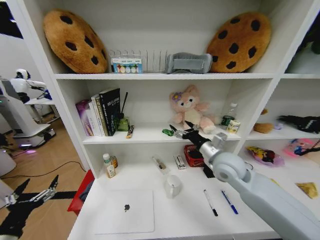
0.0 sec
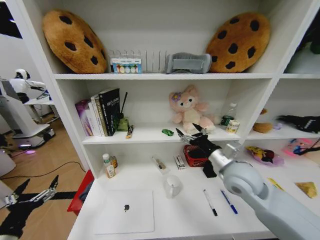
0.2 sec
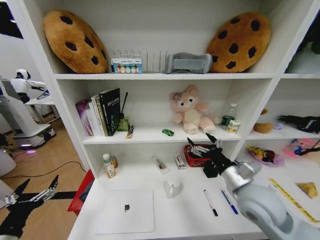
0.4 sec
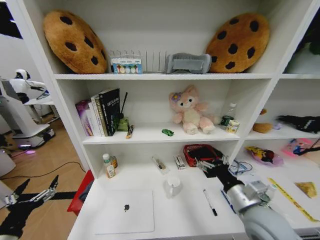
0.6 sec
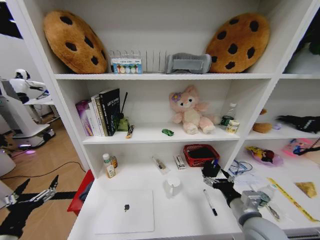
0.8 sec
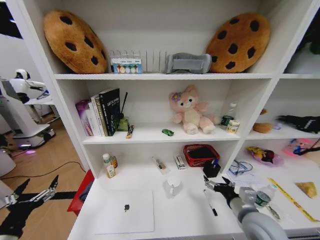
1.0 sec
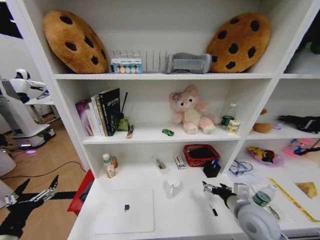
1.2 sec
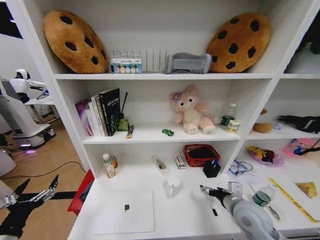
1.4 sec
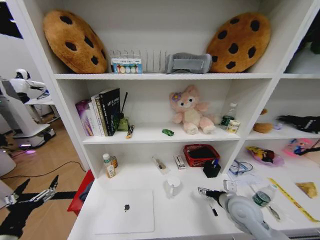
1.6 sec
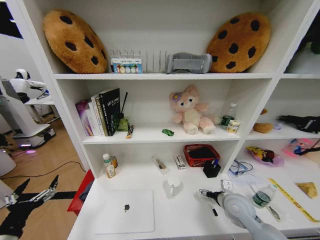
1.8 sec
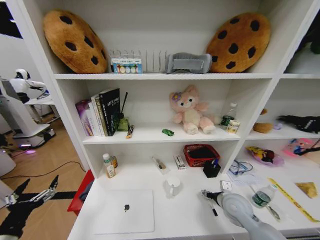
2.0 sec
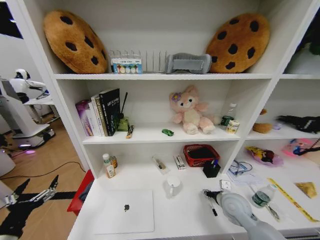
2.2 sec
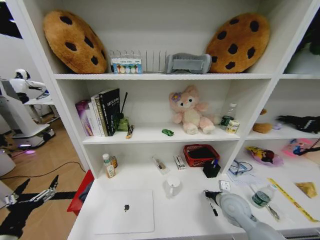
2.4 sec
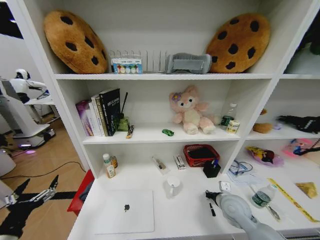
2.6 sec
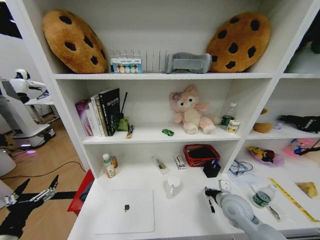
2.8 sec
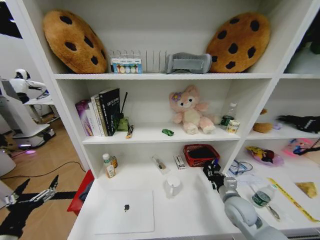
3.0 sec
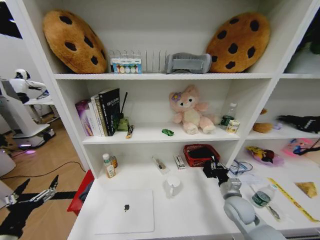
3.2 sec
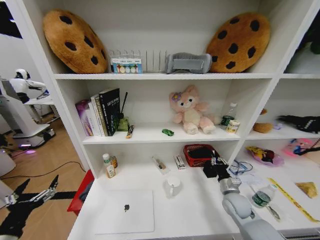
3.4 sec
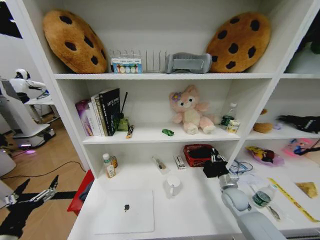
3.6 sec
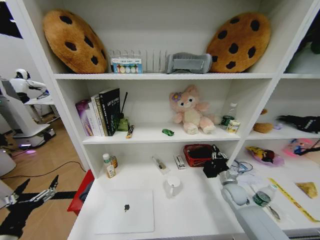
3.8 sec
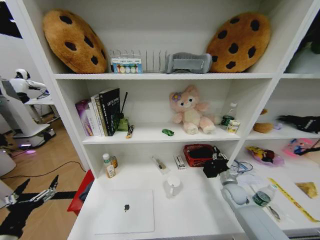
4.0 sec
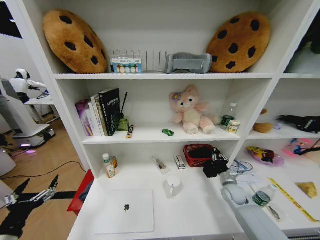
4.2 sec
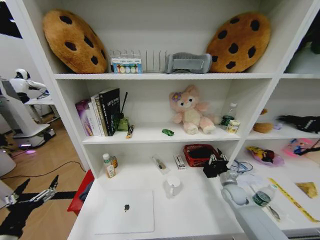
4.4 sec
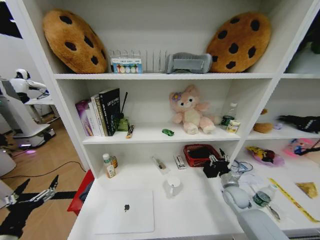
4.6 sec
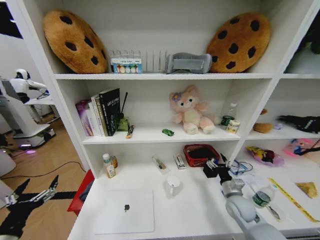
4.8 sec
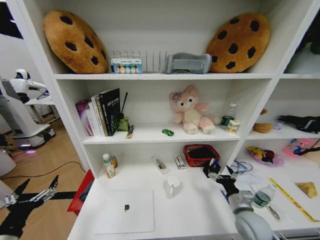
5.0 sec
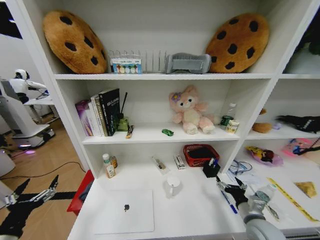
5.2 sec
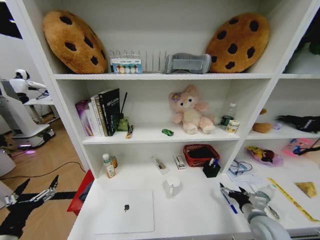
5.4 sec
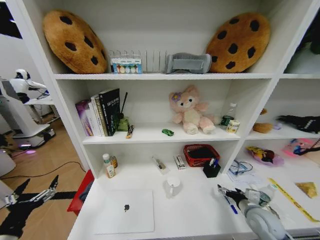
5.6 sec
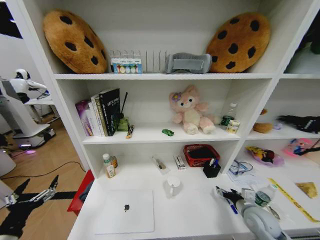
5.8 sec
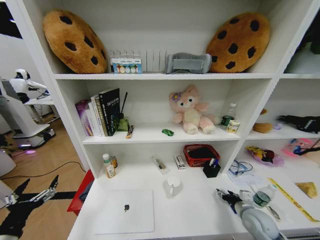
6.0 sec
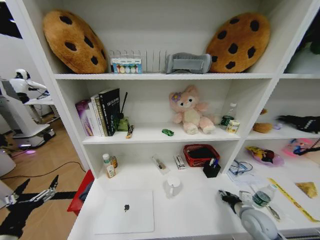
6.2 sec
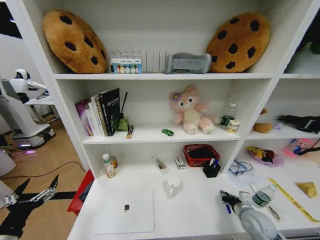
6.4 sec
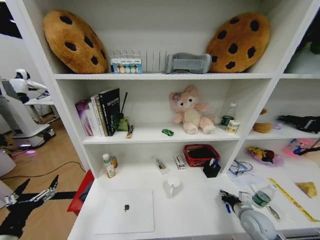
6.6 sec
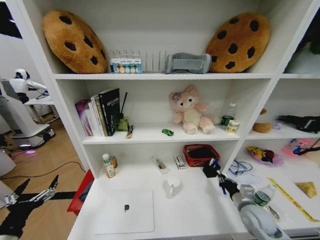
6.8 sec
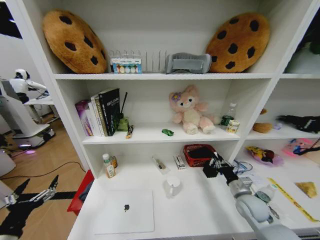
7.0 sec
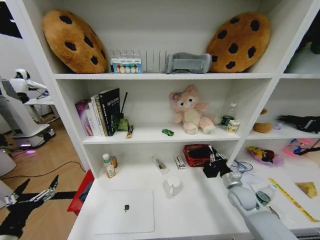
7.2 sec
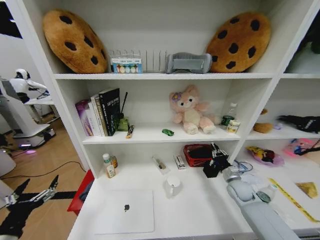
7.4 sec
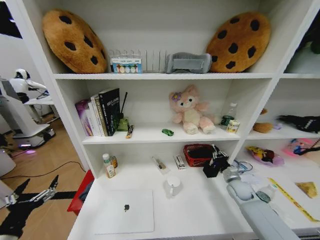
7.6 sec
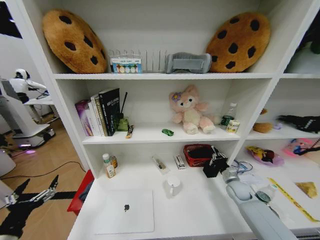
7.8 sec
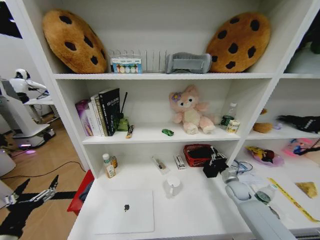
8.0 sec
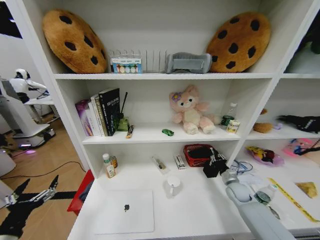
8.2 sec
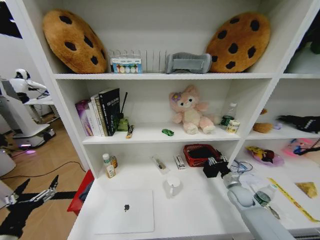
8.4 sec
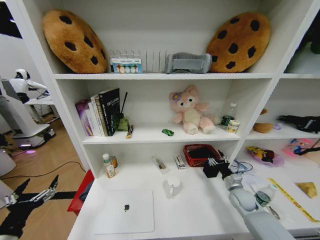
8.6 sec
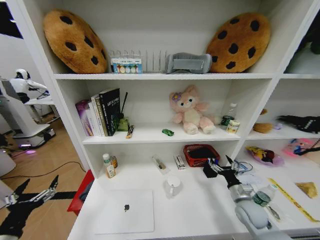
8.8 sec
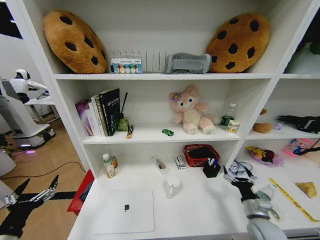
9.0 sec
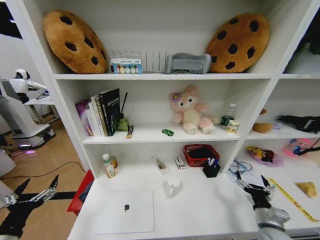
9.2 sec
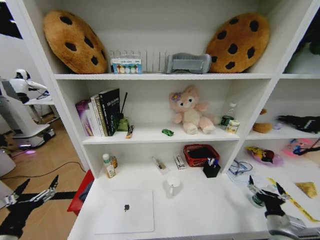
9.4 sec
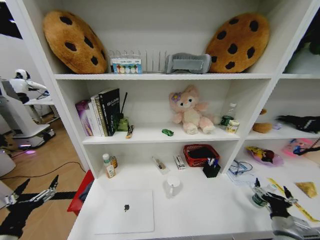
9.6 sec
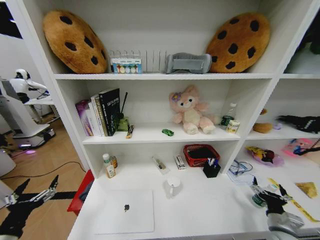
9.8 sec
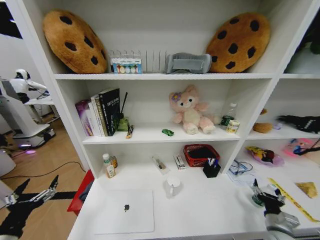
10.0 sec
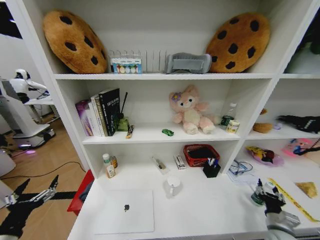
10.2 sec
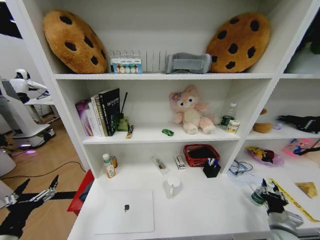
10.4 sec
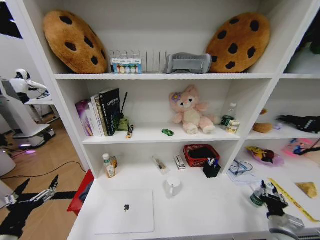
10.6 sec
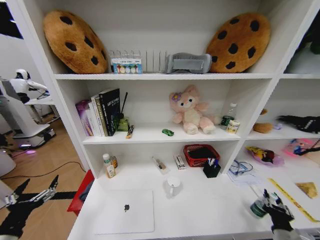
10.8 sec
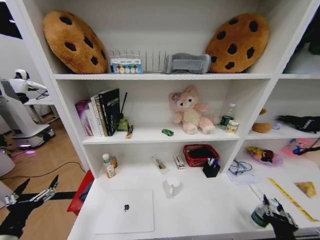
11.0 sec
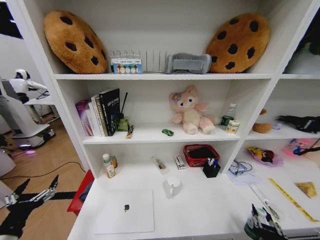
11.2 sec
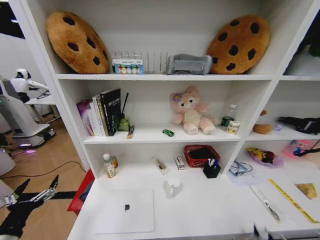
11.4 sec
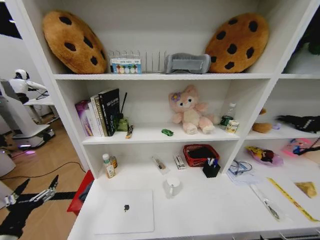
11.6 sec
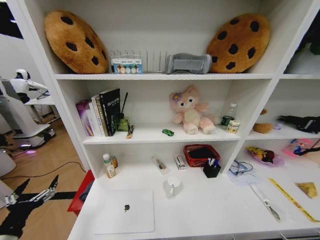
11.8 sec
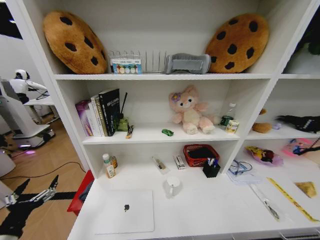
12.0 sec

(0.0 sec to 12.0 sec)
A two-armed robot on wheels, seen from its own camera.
Task of the whole recording: Organize the objects on the table.
0.0 sec - 1.6 sec: The right gripper heads downward, backward and to the right, covering roughly 20 cm.
1.6 sec - 3.0 sec: The right gripper closes up.
3.0 sec - 4.4 sec: The right gripper is displaced forward, downward and to the right by roughly 15 cm.
4.4 sec - 6.0 sec: The right gripper is displaced backward by some 10 cm, and opens, then closes again.
6.0 sec - 7.6 sec: The right gripper goes about 15 cm forward, and closes.
7.6 sec - 9.0 sec: The right gripper shifts roughly 15 cm backward, and opens its fingers.
9.0 sec - 10.4 sec: The right gripper travels to the right by about 10 cm, and closes its fingers.
10.4 sec - 12.0 sec: The right gripper travels backward and to the left by about 25 cm.

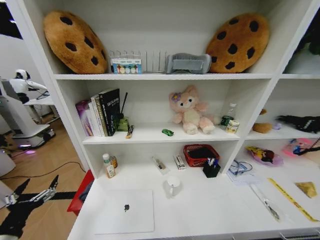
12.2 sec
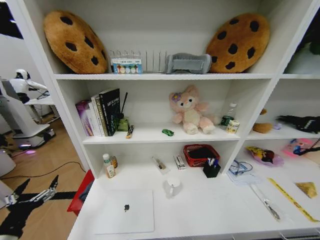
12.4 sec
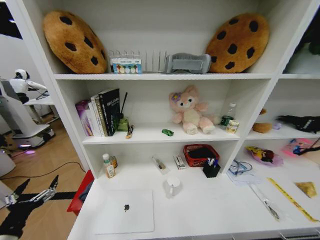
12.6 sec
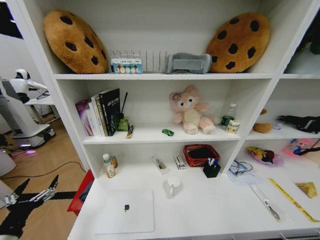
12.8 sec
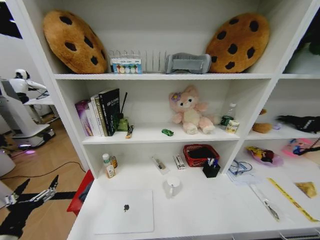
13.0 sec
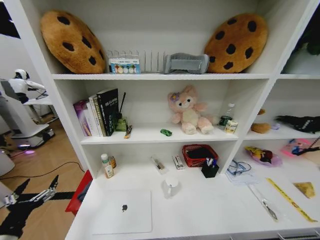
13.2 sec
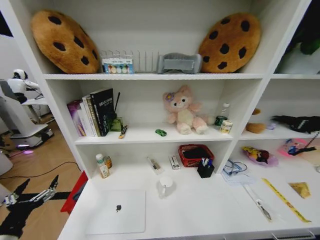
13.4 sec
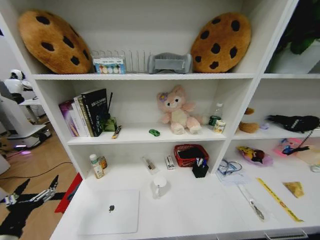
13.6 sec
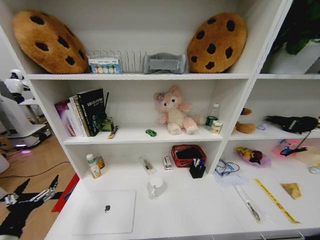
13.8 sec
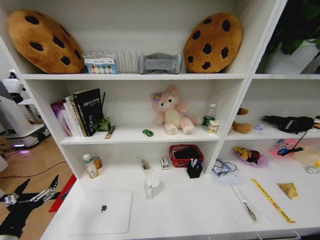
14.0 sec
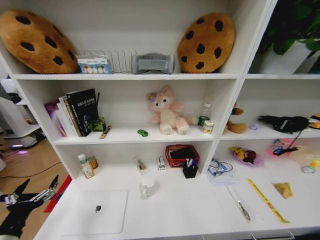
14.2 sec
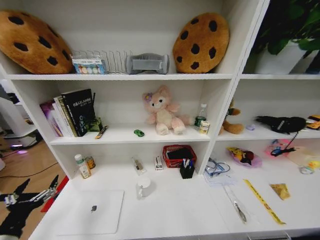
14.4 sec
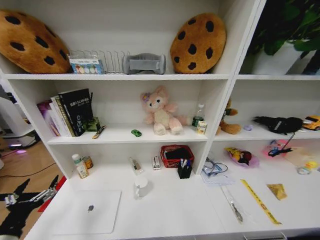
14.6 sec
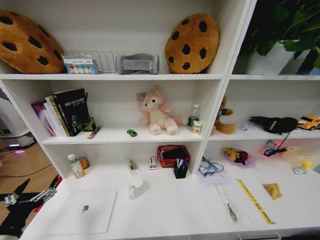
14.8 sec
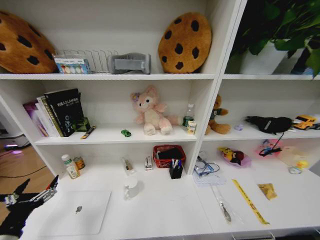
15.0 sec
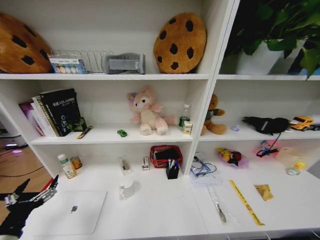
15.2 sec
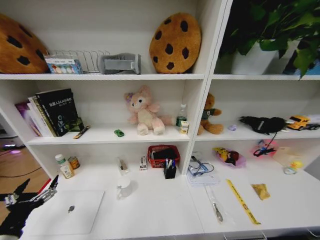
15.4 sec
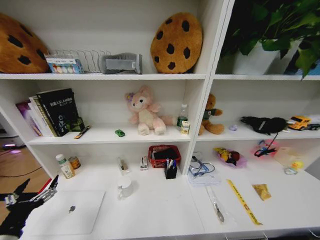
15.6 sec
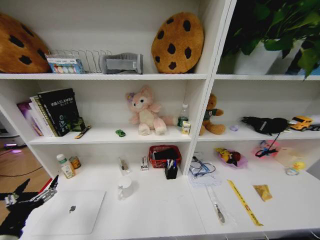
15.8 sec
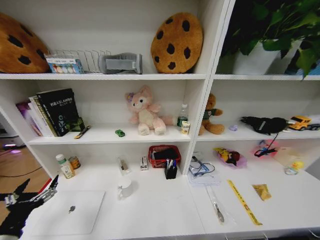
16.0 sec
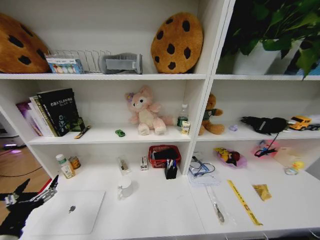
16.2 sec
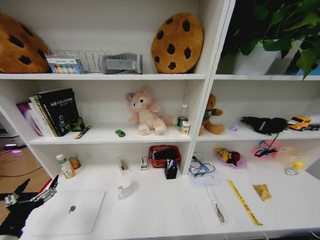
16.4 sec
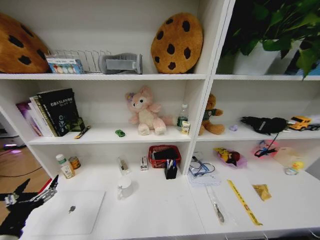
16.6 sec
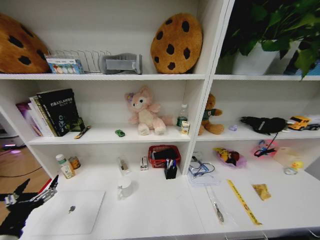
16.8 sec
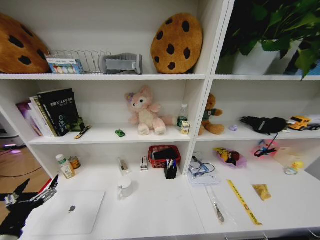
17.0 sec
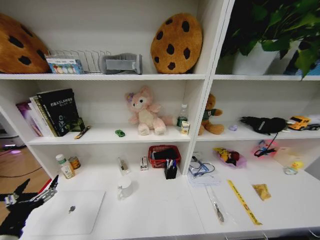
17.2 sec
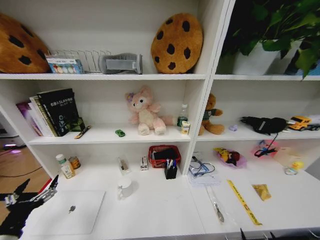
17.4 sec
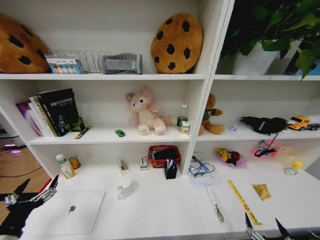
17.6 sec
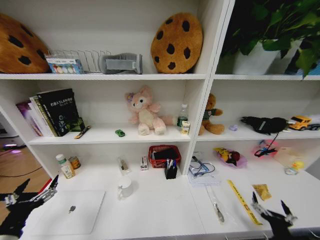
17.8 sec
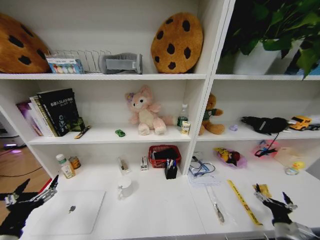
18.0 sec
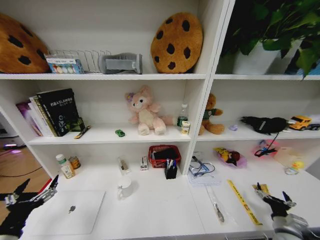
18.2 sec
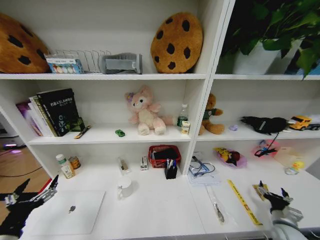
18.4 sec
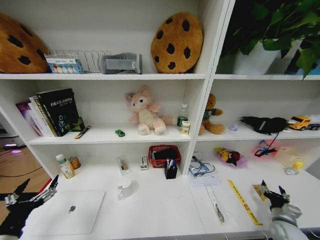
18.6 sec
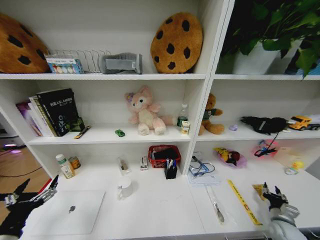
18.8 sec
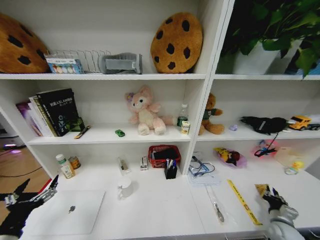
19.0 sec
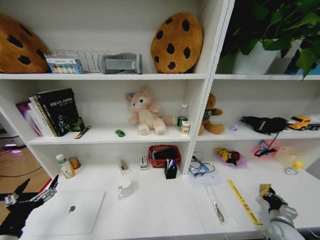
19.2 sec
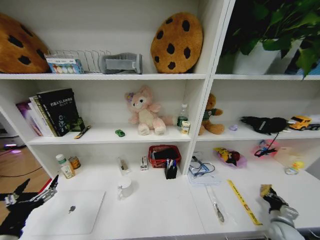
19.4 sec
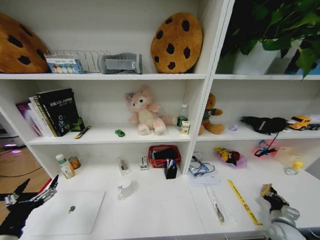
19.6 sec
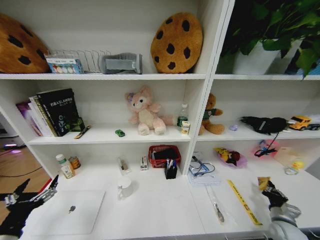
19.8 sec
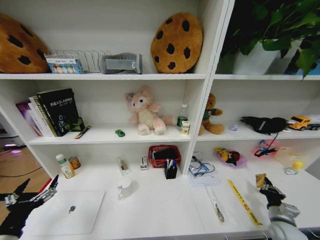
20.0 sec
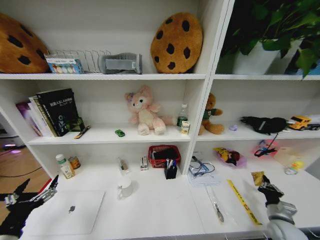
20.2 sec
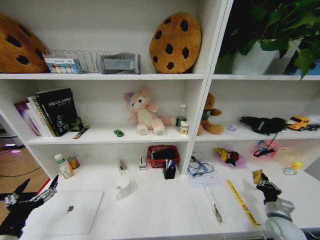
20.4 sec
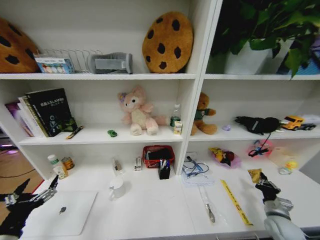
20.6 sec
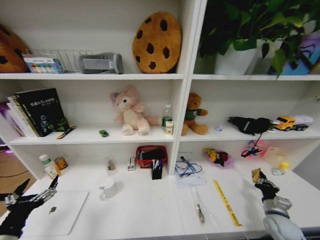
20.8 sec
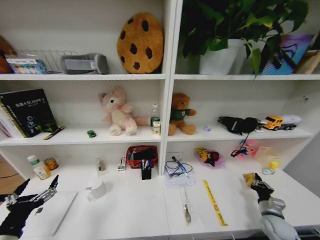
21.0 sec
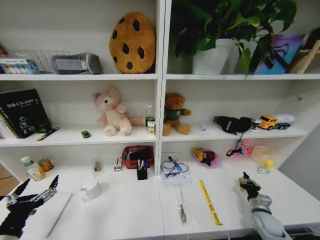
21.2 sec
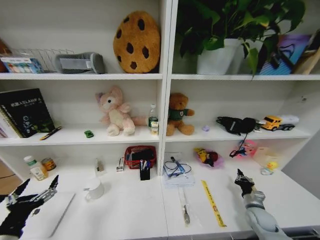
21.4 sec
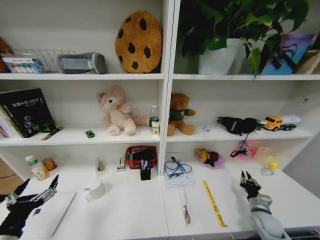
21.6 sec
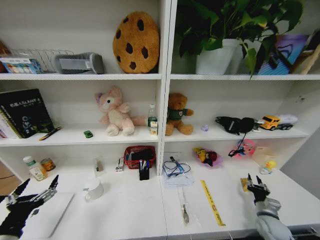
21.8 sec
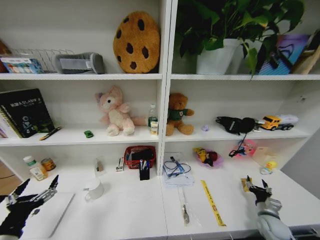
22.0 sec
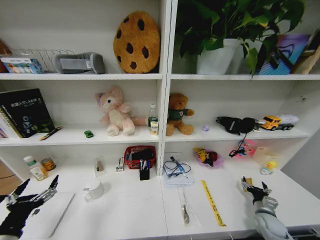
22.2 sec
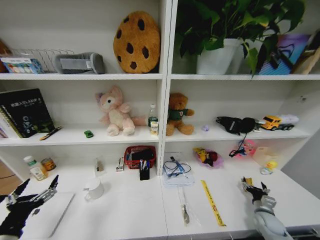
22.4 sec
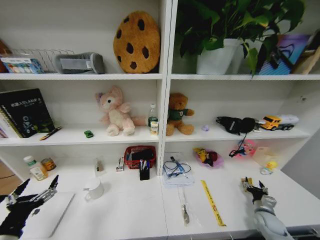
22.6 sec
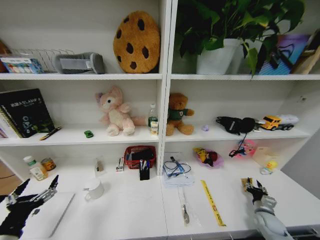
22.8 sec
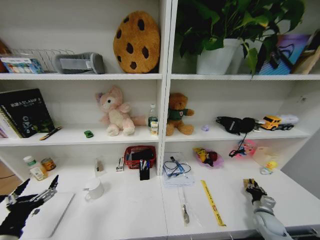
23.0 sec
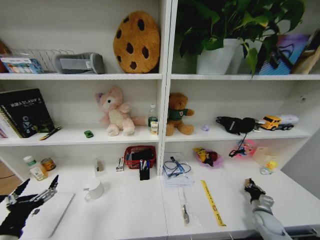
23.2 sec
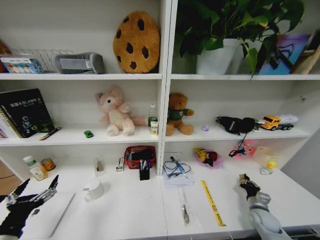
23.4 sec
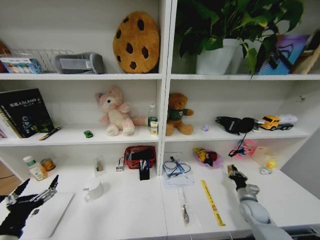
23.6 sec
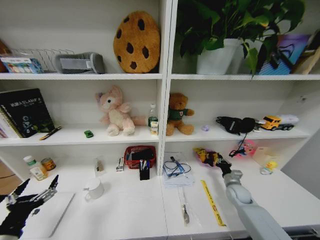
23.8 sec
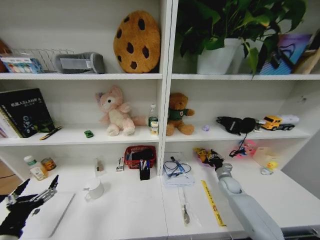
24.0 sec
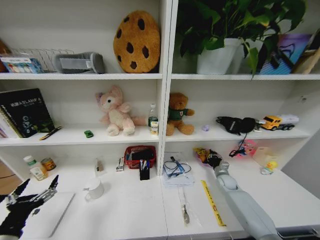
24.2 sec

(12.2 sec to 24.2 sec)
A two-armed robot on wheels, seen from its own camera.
Task of the whole recording: Organize the objects on the table.
12.2 sec - 13.8 sec: The right gripper is displaced downward, forward and to the right by approximately 15 cm.
15.2 sec - 16.6 sec: The right gripper shifts some 15 cm backward, and opens up.
16.6 sec - 18.2 sec: The right gripper shifts approximately 40 cm forward, upward and to the right.
18.2 sec - 19.8 sec: The right gripper closes up.
21.2 sec - 22.6 sec: The right gripper moves about 5 cm, and opens up.
22.6 sec - 24.2 sec: The right gripper heads forward and to the left, covering roughly 20 cm, and closes.
